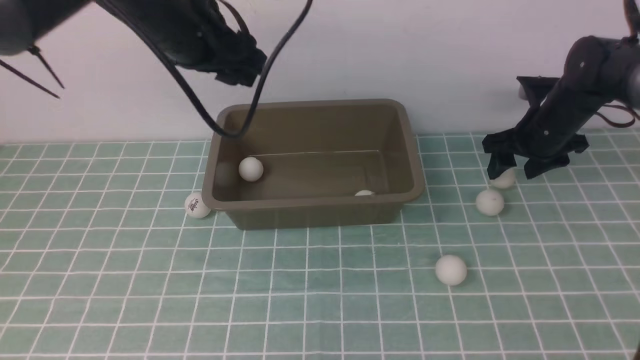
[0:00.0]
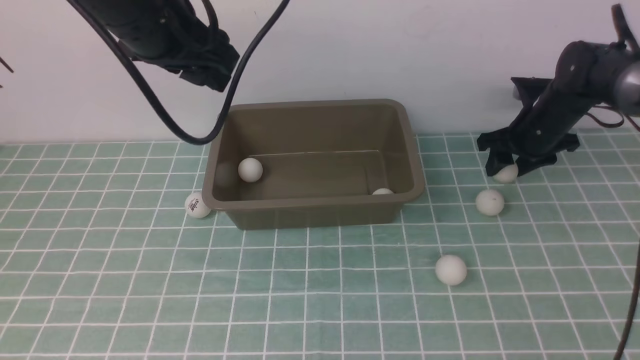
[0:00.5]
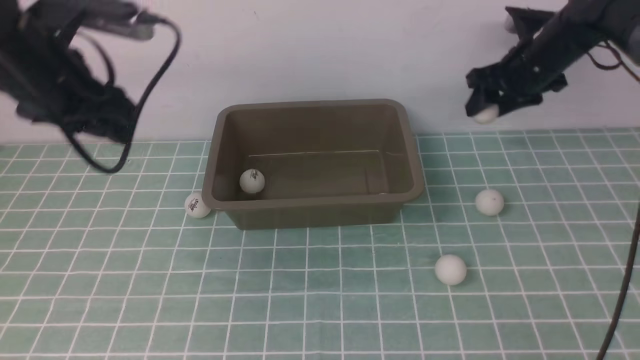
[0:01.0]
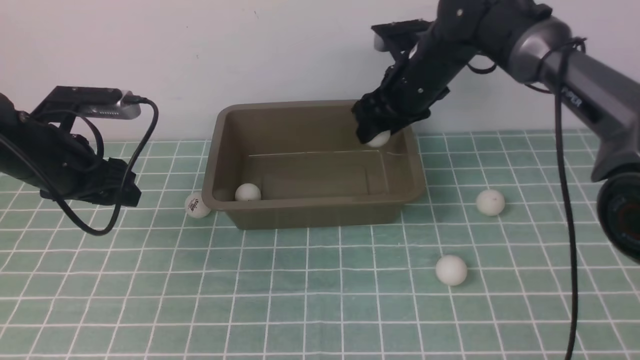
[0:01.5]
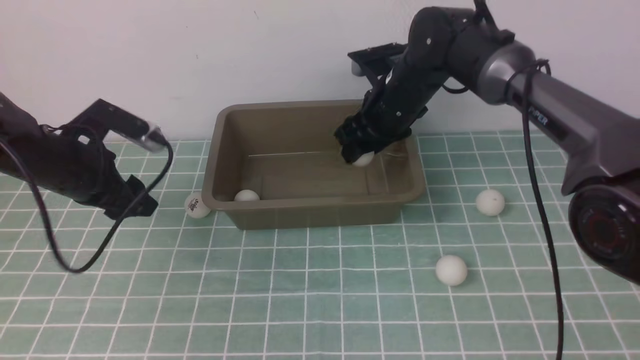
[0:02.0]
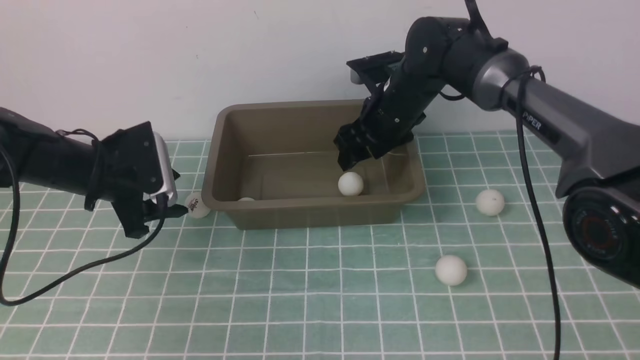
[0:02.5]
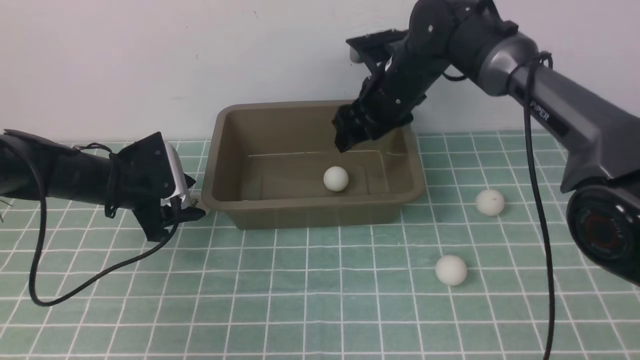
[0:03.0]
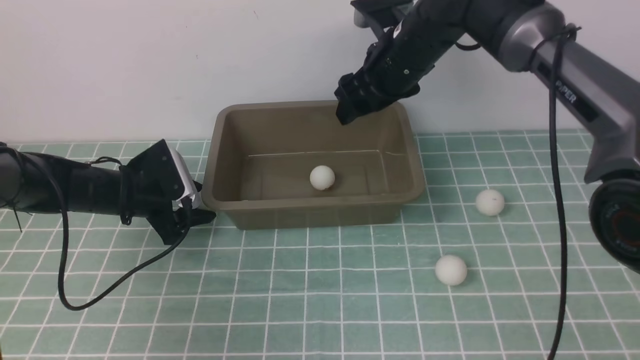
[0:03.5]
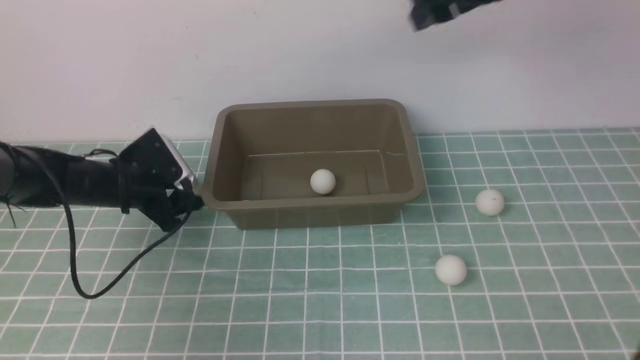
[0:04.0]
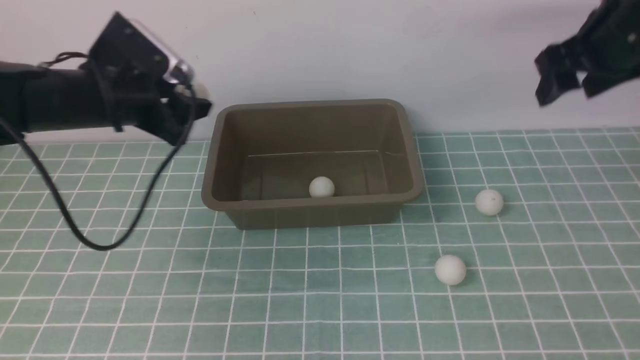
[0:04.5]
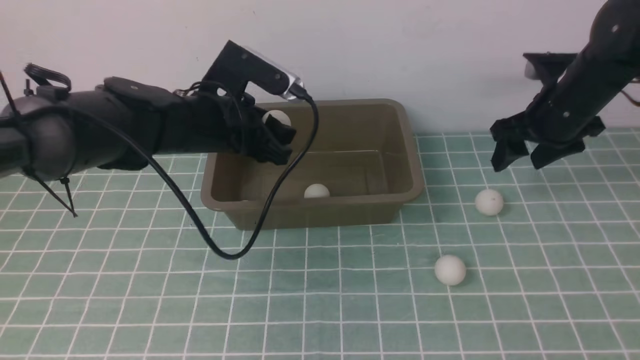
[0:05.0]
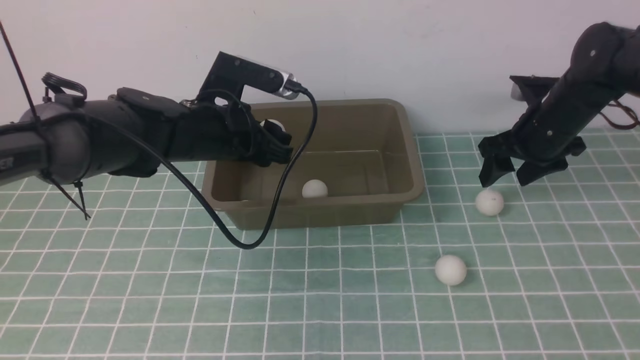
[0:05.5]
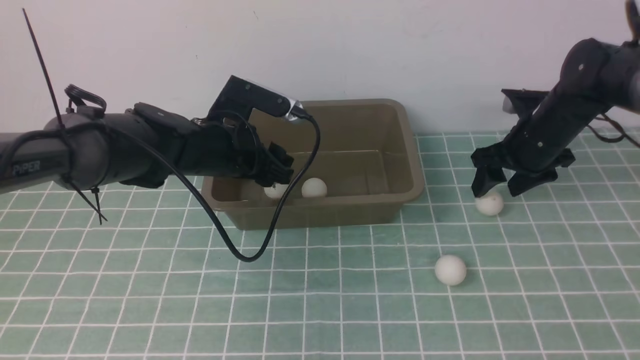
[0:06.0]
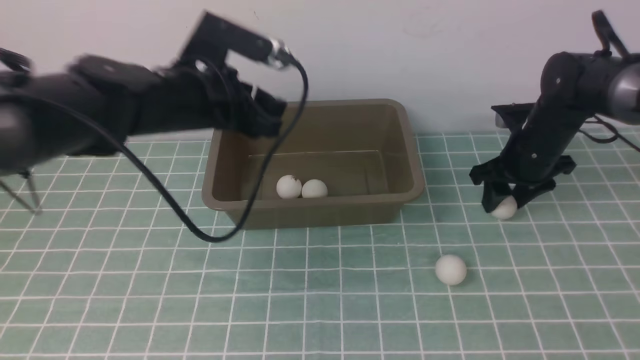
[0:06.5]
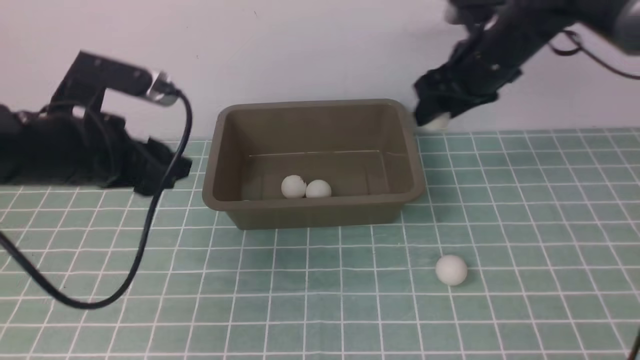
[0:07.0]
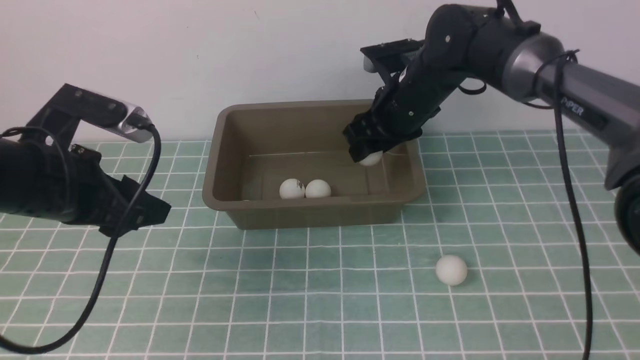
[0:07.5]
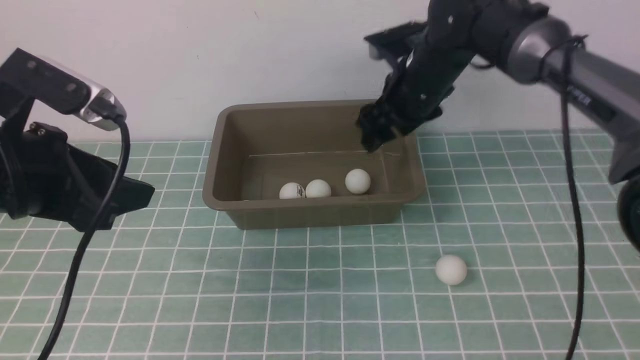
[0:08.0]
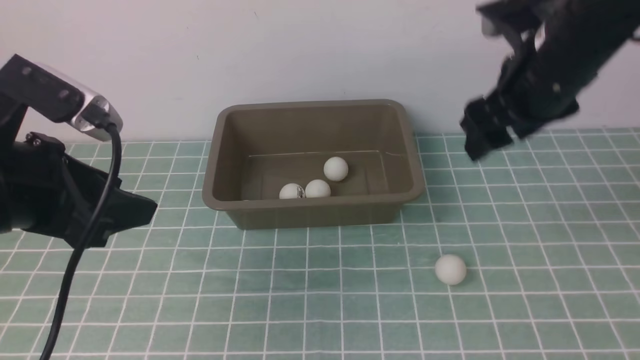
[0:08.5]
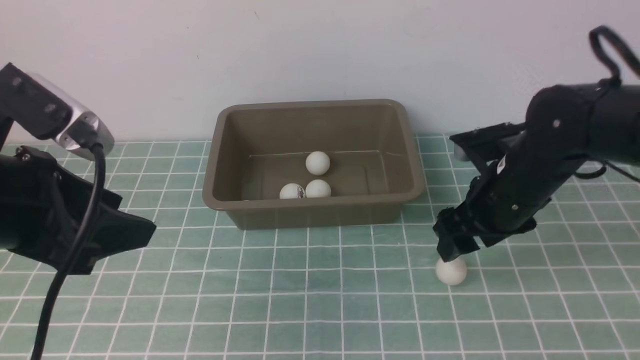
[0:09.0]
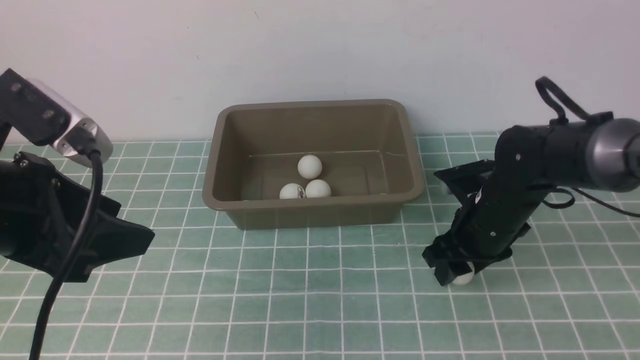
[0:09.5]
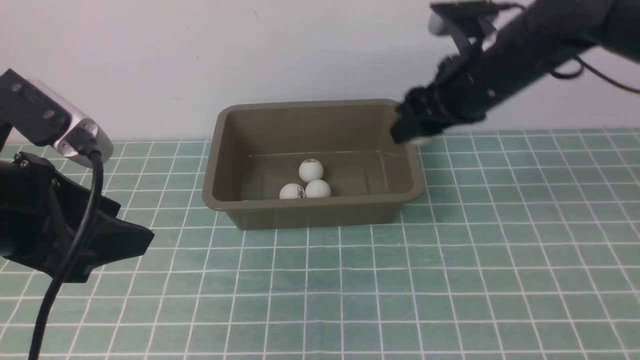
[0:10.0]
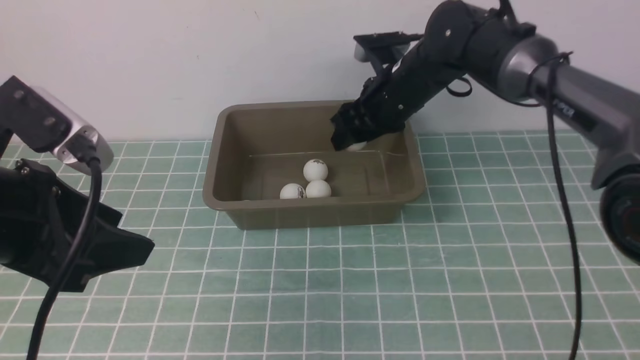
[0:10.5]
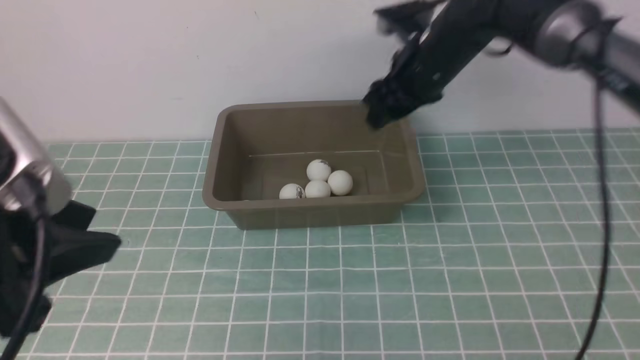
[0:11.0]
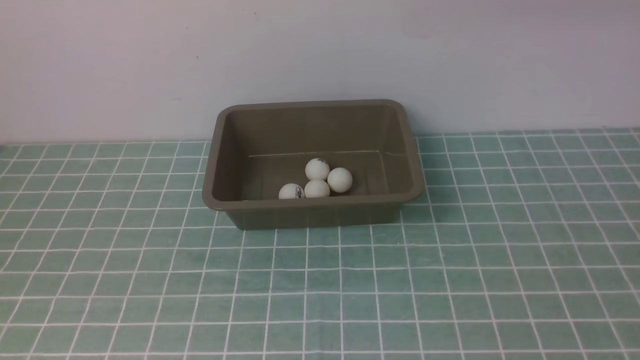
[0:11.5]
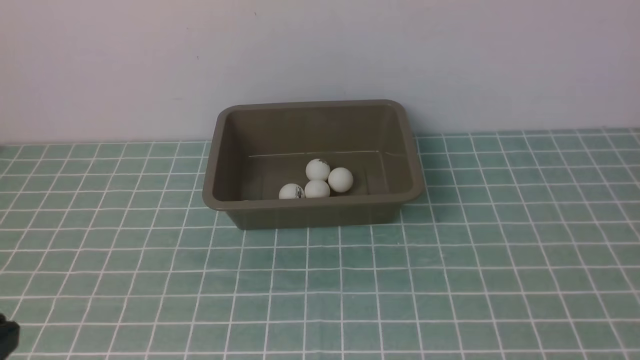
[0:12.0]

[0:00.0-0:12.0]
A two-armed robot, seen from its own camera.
Step, 0:00.0 to 0:00.5: use the right arm to clamp the table tennis ball closest to it.
Step, 0:01.0 to 0:02.0: use the right arm to put the table tennis ball into the box.
Step, 0:02.5 to 0:04.0: use the left arm to clamp the table tennis ball closest to it.
Step, 0:04.5 to 0:06.0: use the left arm to put the table tennis ball into the box.
Step, 0:07.0 to 0:07.5: use the right arm to put the table tennis ball into the box.
Step, 0:08.5 to 0:09.5: use the right arm to clamp the table tennis ball closest to it.
Step, 0:10.0 to 0:10.5: use the right arm to put the table tennis ball into the box.
0:00.0 to 0:02.0: The right gripper travels to the left by some 20 cm, while the left gripper heads downward and to the left, covering about 25 cm.
0:02.0 to 0:04.0: The right gripper moves to the right, about 20 cm; the left gripper heads to the right and upward, covering some 15 cm.
0:04.0 to 0:06.0: The right gripper heads downward, covering roughly 5 cm. Meanwhile the left gripper changes place by some 5 cm.
0:06.0 to 0:08.0: The two grippers go roughly 15 cm backward and to the left.
0:08.0 to 0:10.0: The right gripper moves up and down over some 15 cm, changing direction 2 times.
0:10.0 to 0:12.0: The left gripper travels backward by about 20 cm, and closes up, while the right gripper moves backward, upward and to the right, approximately 50 cm, and closes.

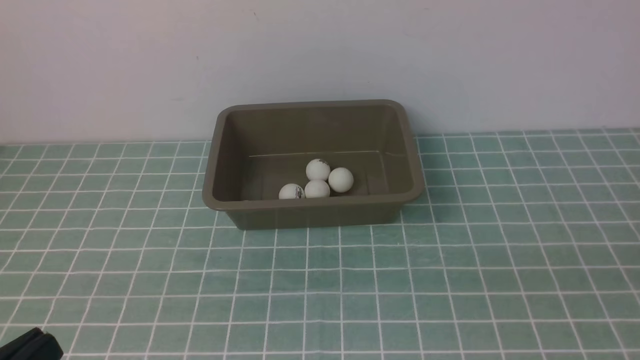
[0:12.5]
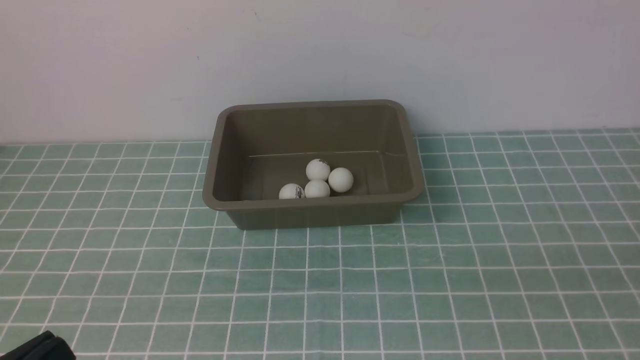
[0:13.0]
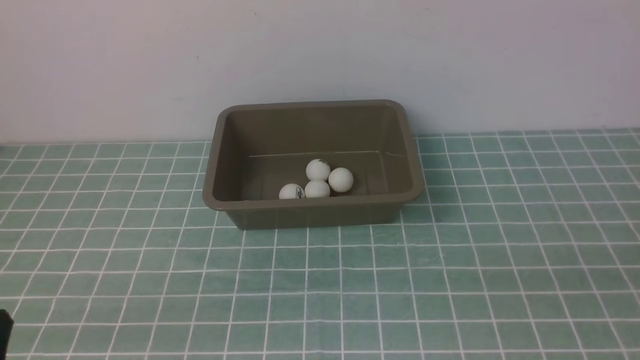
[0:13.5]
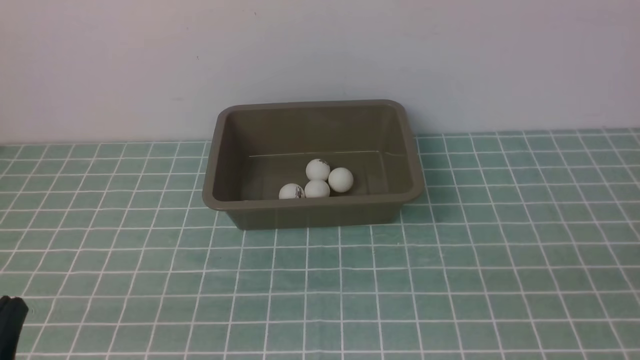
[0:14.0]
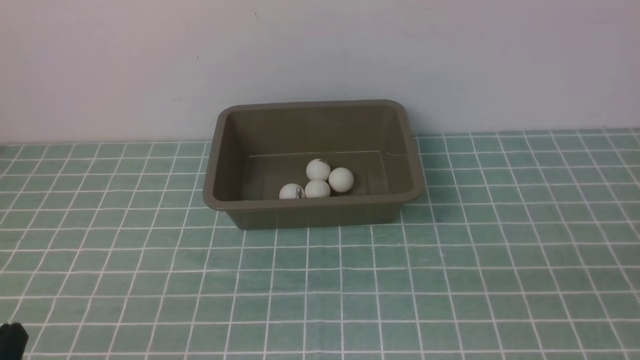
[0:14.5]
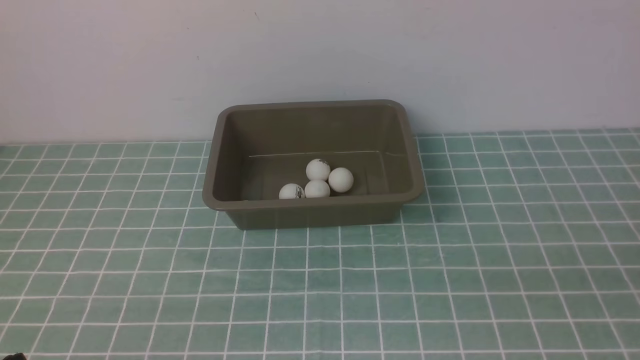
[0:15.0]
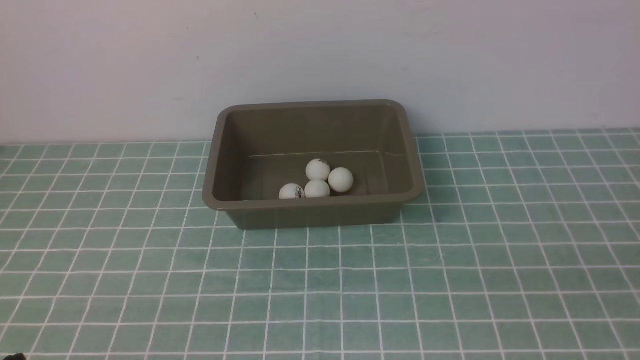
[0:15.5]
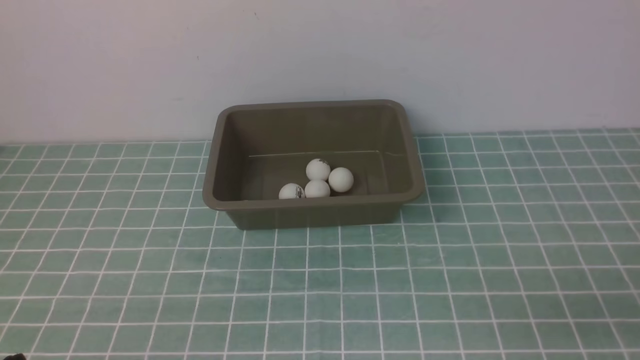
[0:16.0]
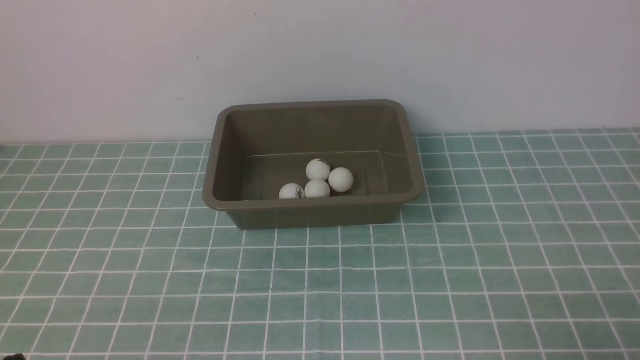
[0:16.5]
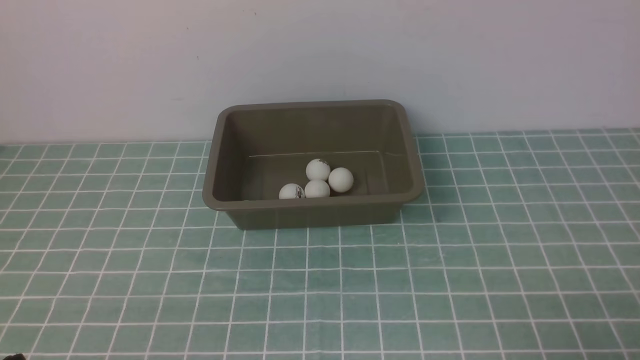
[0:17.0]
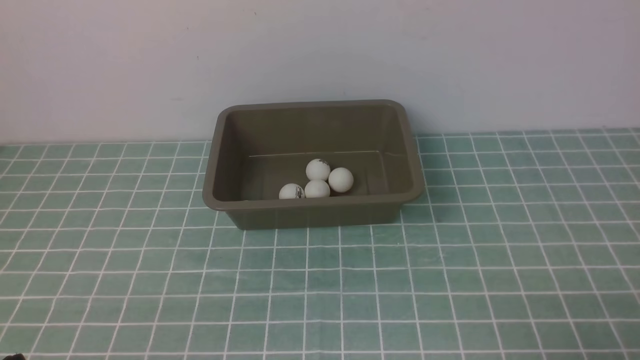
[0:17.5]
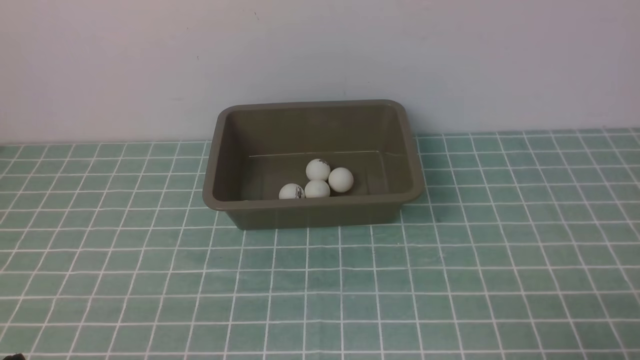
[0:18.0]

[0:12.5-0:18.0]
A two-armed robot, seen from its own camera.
0:12.5 to 0:14.5: The left gripper moves downward and forward, some 10 cm.
